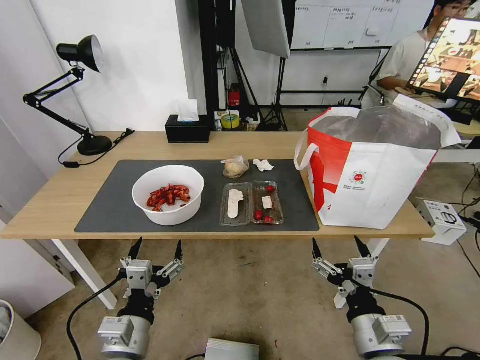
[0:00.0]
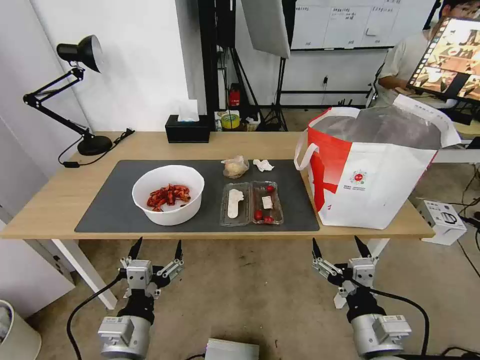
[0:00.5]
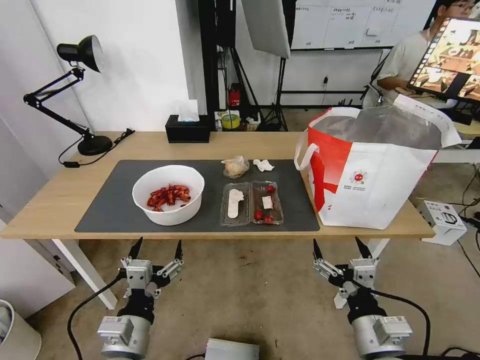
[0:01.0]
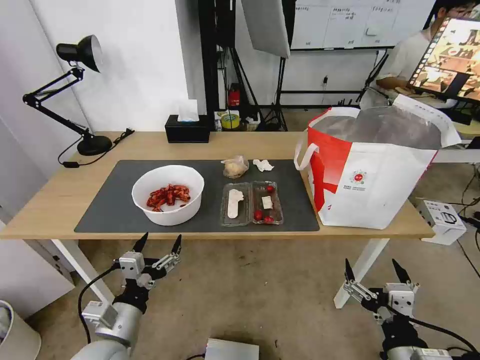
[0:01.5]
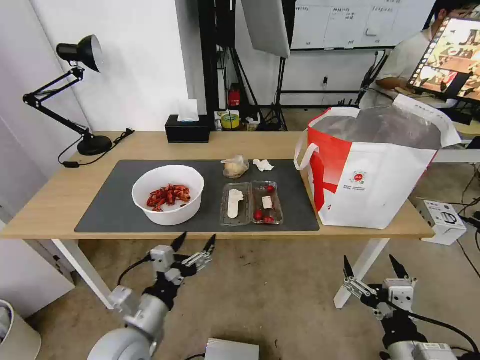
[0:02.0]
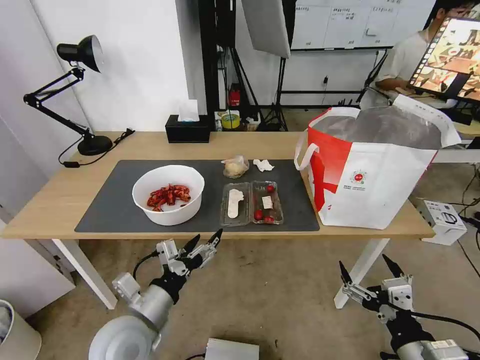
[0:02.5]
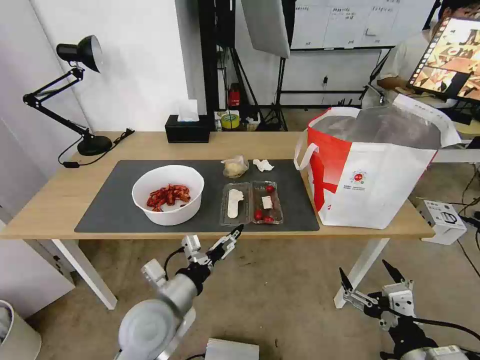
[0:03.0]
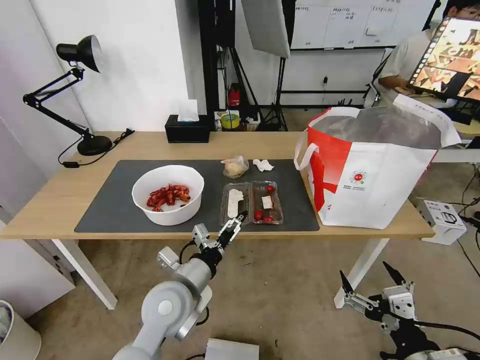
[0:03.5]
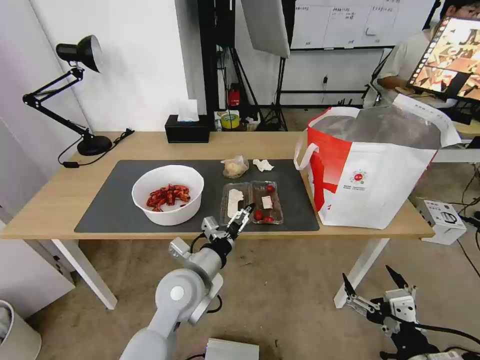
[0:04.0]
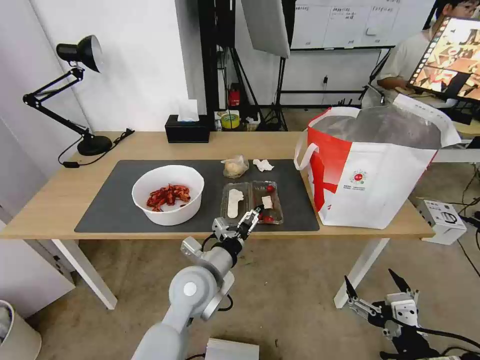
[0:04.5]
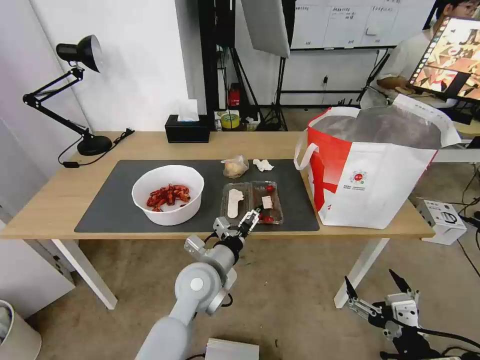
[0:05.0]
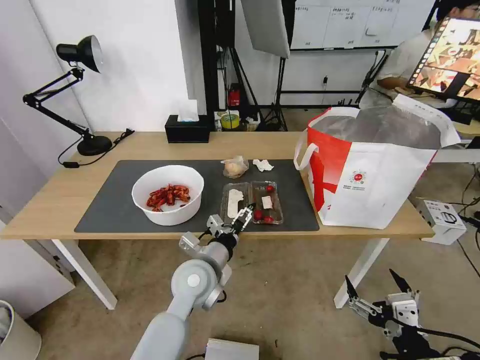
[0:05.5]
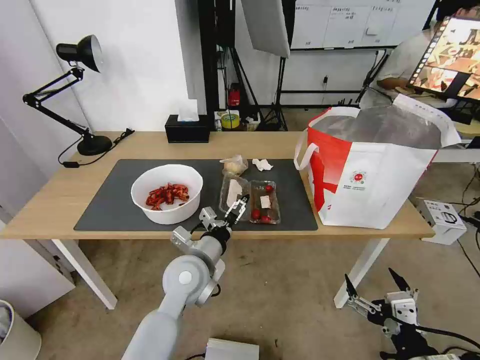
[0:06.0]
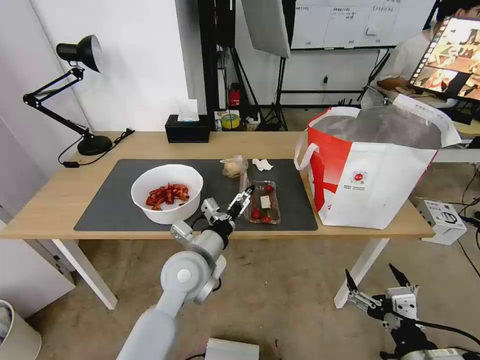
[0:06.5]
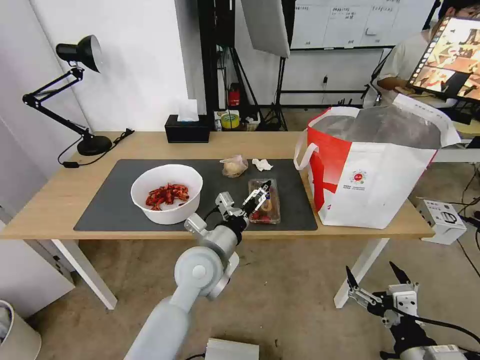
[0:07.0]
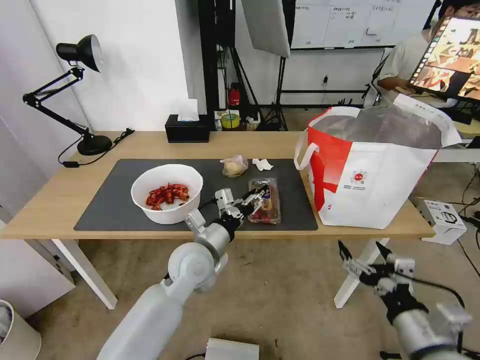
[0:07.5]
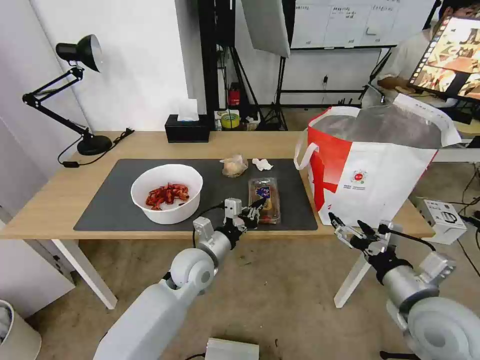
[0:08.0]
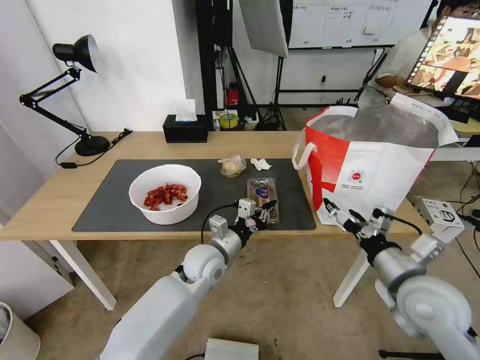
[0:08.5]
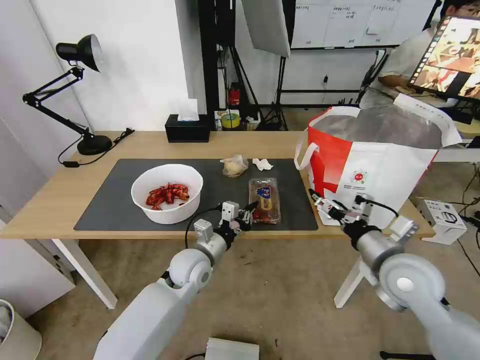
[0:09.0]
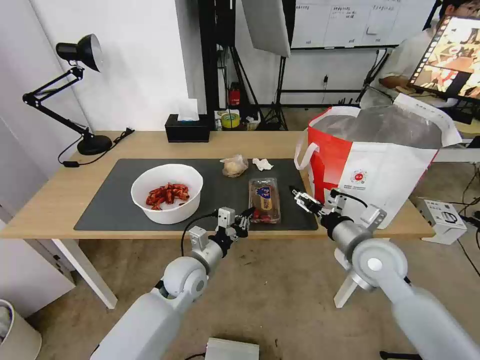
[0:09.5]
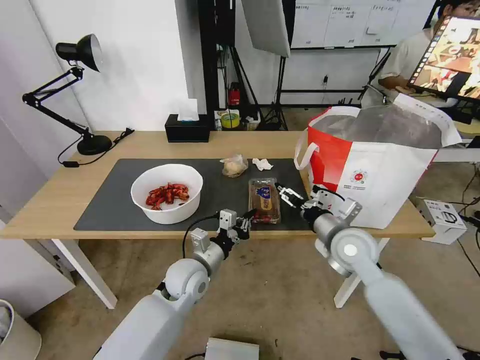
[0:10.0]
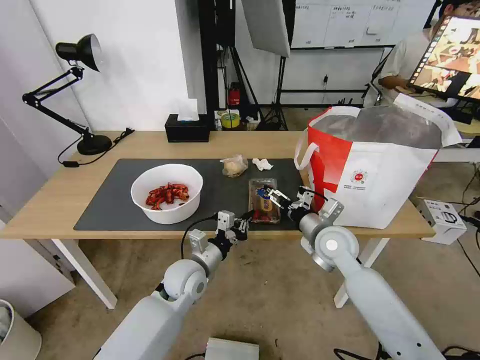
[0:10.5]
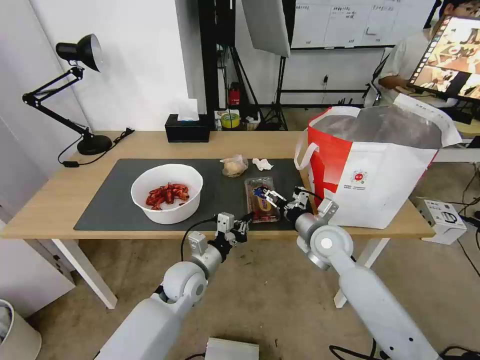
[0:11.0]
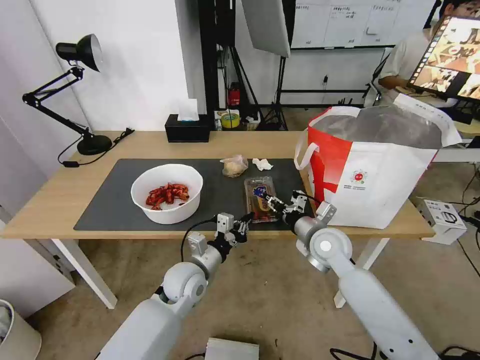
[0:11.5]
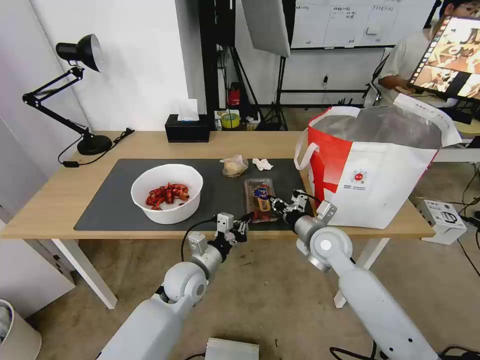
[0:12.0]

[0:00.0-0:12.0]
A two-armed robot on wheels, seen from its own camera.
Task of the whole recording: Pick up the trash from the table and place it into the takeout bag.
0:02.0 to 0:04.0: The left gripper travels forward and to the right by roughly 15 cm.
0:04.0 to 0:06.0: The grippers stay close to where they were, moving slightly.
0:06.0 to 0:08.0: The right gripper travels forward by about 15 cm, while the left gripper shifts by some 5 cm, and closes its fingers.
0:08.0 to 0:10.0: The right gripper shifts approximately 20 cm forward and to the left.
0:10.0 to 0:12.0: The right gripper changes place by roughly 5 cm, and closes its fingers.

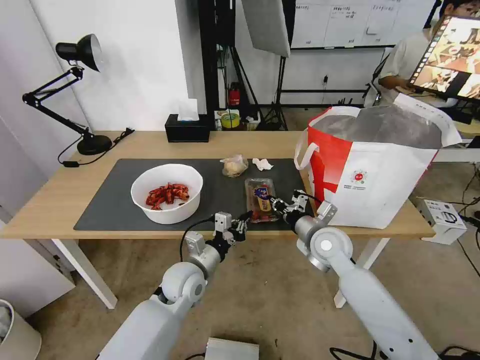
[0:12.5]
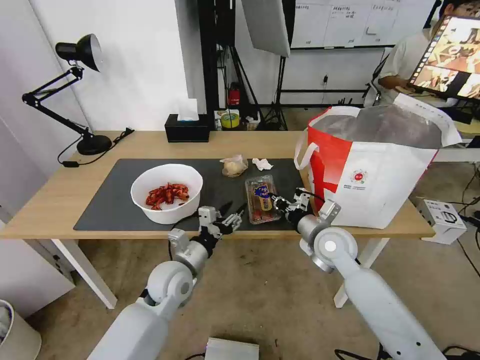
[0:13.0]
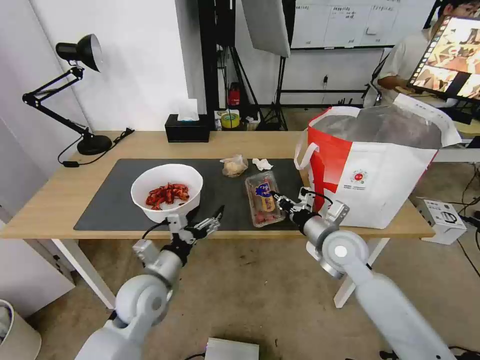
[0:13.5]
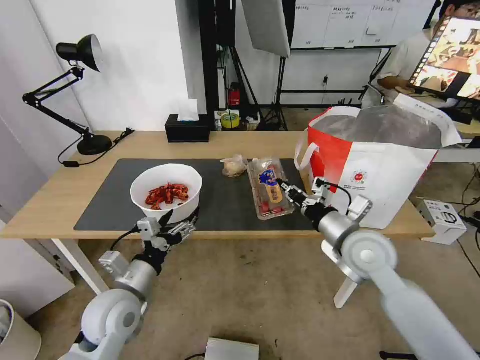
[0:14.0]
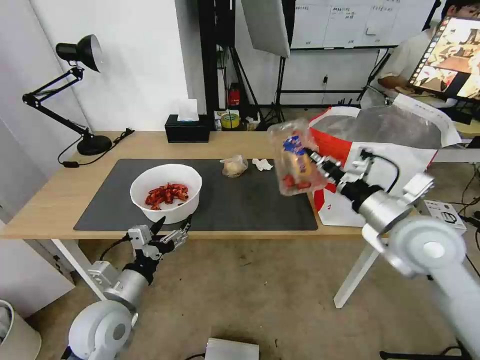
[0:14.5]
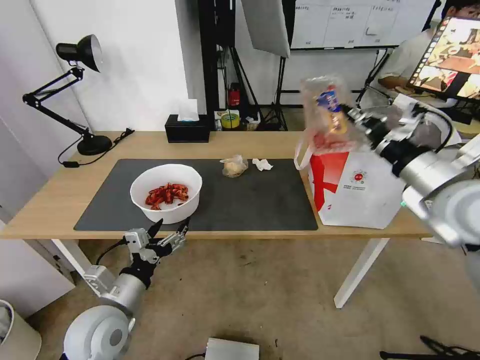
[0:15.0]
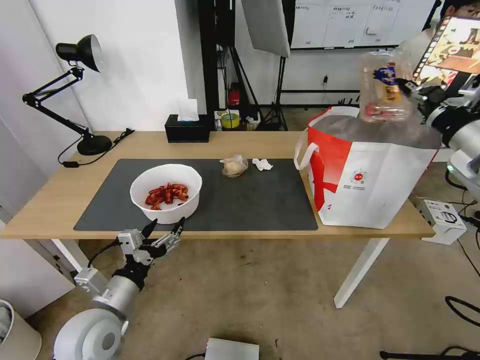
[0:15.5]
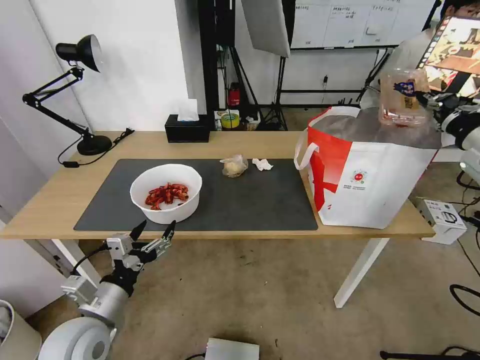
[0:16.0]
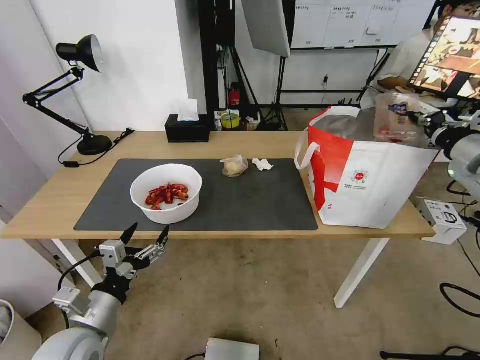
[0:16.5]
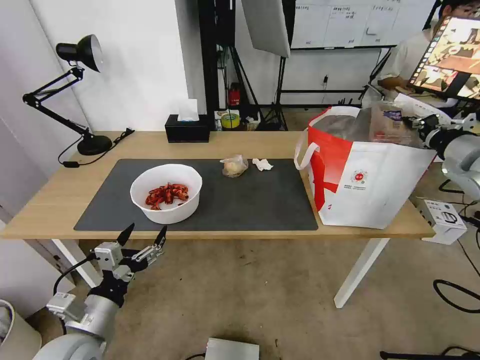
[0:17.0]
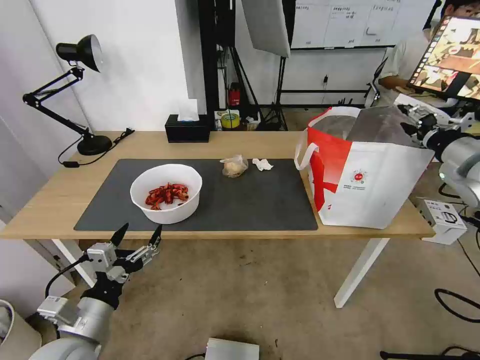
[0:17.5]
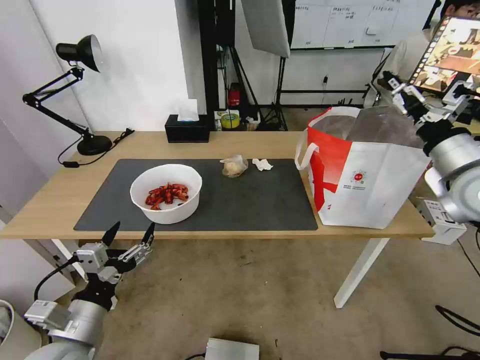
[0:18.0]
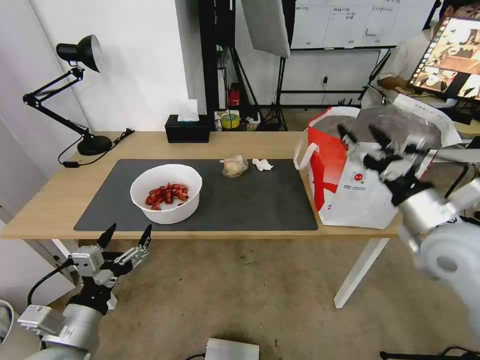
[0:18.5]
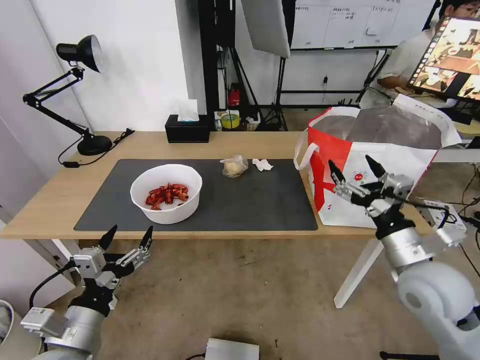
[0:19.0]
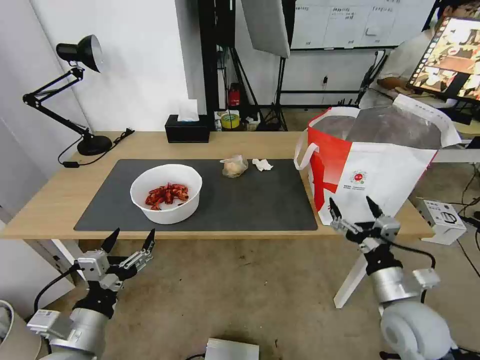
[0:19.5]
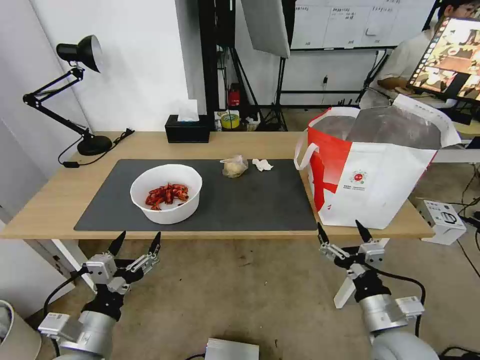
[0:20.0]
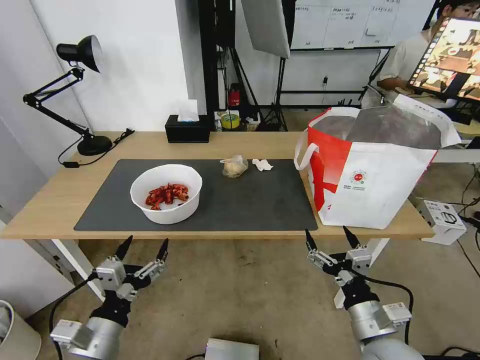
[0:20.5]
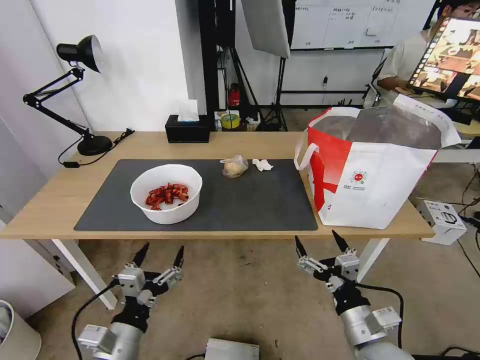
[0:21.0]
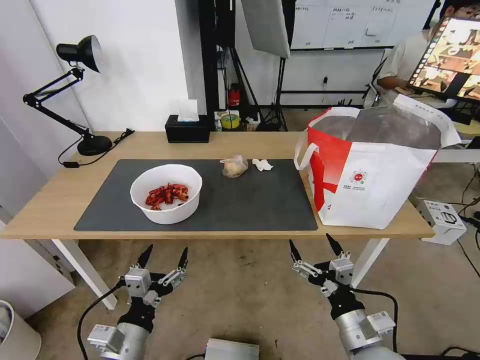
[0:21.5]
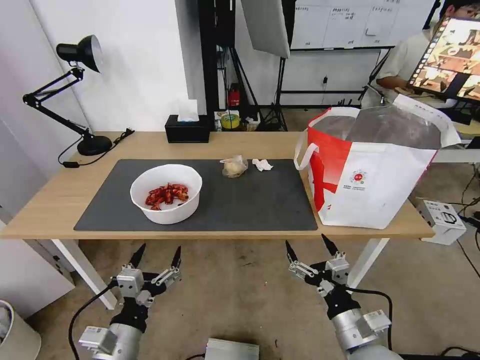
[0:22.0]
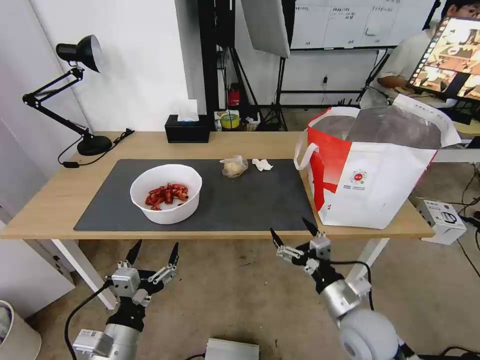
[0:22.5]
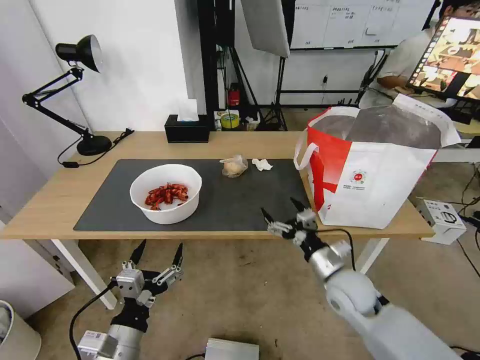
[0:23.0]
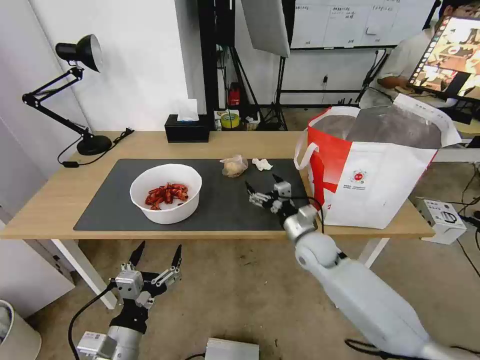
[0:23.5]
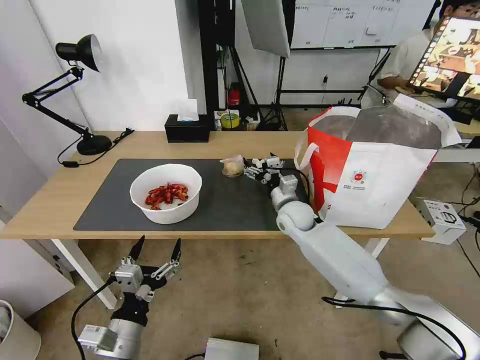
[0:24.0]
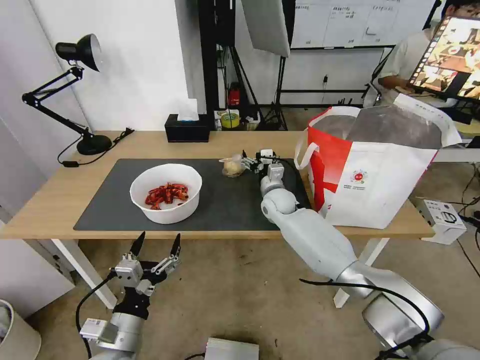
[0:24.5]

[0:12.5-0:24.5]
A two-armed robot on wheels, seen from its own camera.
Task of the whole recording: Pick up the trash from the table and place it into the takeout bag.
0:12.5 to 0:14.5: The right gripper travels upward, backward and to the right by roughly 20 cm. Meanwhile the left gripper moves to the left, backward and upward, about 15 cm, and opens.
0:14.5 to 0:16.5: The right gripper shifts approximately 20 cm to the right, forward and upward, while the left gripper ends up roughly 5 cm from where it was.
0:16.5 to 0:18.5: The right gripper travels to the left, backward and downward by some 20 cm, and opens up.
0:18.5 to 0:20.5: The right gripper travels downward, backward and to the left by about 25 cm.
0:20.5 to 0:22.5: The right gripper shifts about 5 cm forward.
0:22.5 to 0:24.5: The right gripper moves forward, approximately 35 cm.

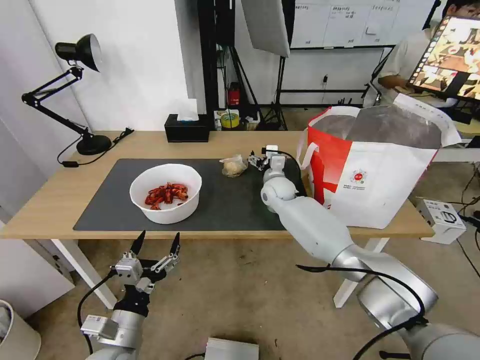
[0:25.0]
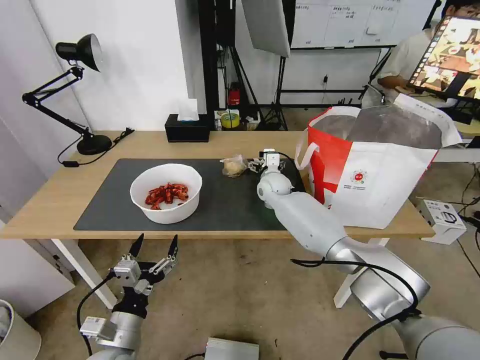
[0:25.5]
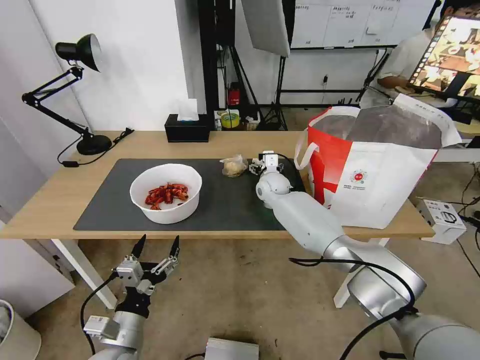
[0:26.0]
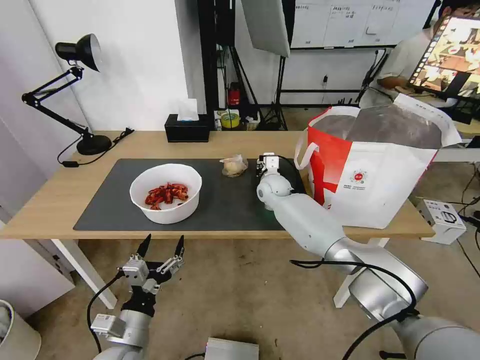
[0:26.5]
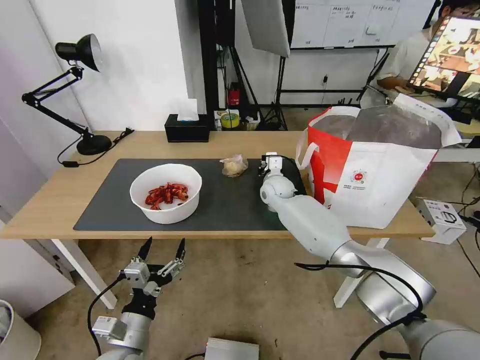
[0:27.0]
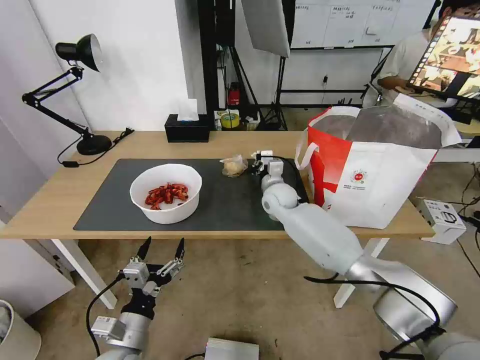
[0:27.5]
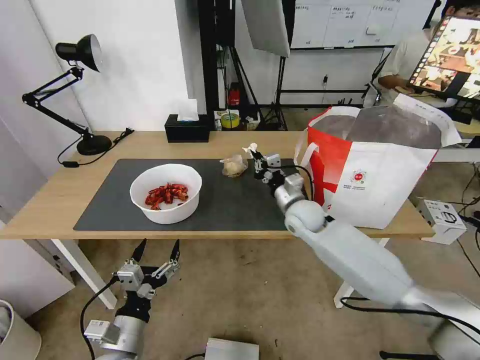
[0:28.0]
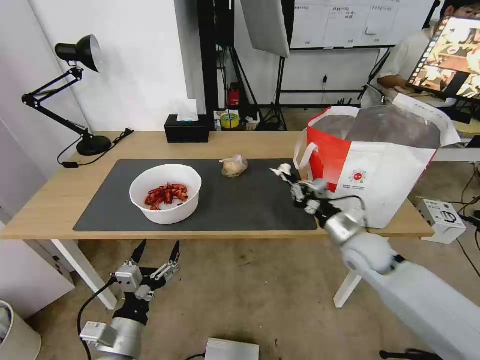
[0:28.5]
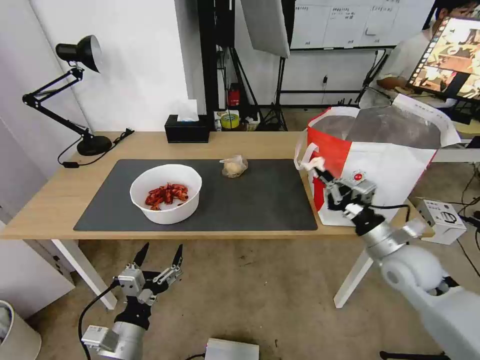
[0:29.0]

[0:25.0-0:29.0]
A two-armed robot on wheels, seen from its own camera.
Task of the whole recording: Pick up the trash from the table and place it into the takeout bag.
0:25.0 to 0:27.0: The right gripper closes its fingers.
0:27.0 to 0:29.0: The right gripper goes about 35 cm backward and to the right.
